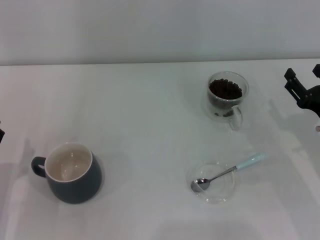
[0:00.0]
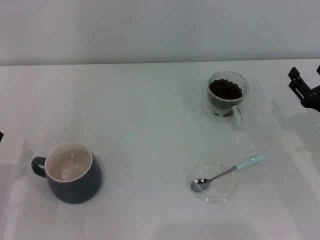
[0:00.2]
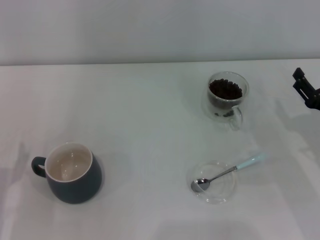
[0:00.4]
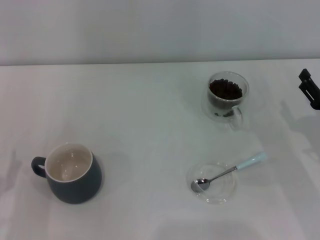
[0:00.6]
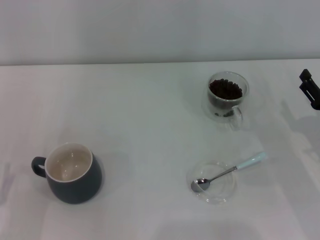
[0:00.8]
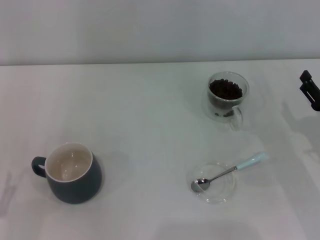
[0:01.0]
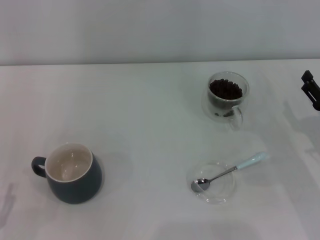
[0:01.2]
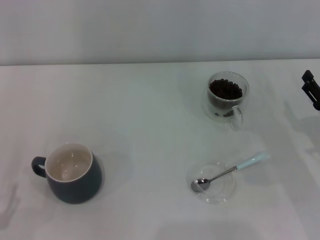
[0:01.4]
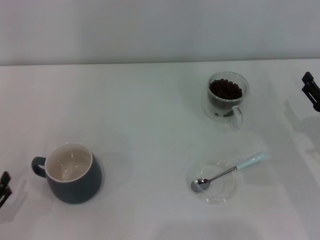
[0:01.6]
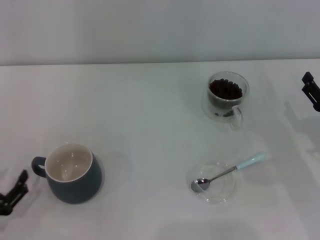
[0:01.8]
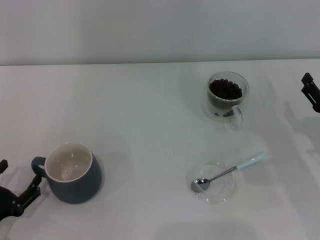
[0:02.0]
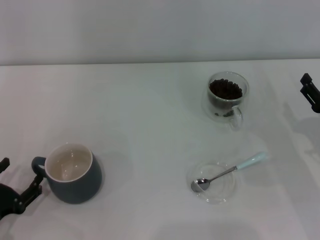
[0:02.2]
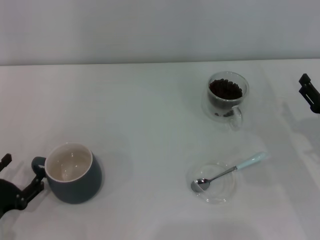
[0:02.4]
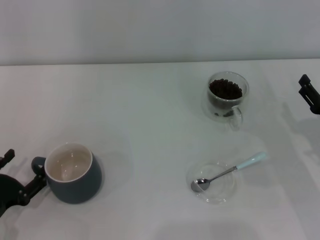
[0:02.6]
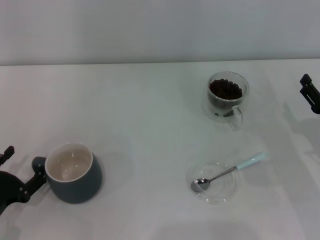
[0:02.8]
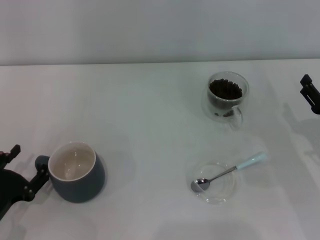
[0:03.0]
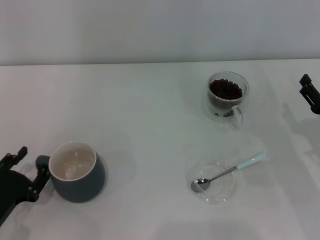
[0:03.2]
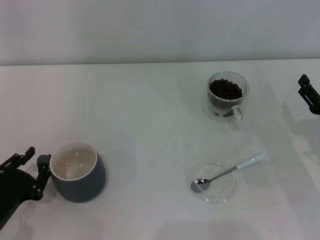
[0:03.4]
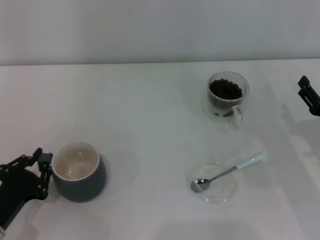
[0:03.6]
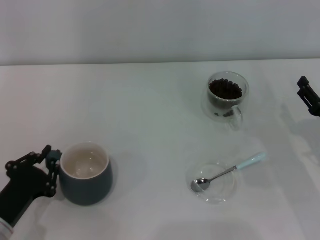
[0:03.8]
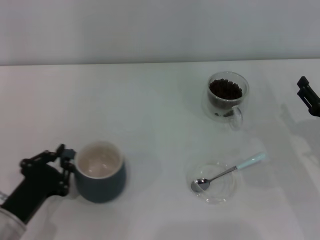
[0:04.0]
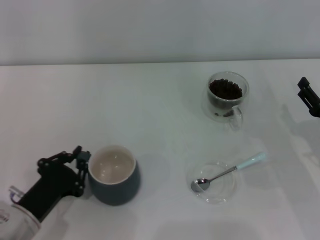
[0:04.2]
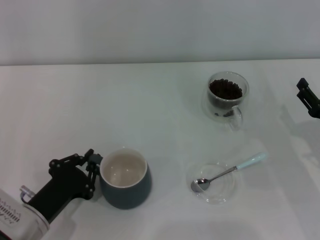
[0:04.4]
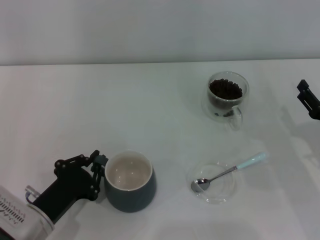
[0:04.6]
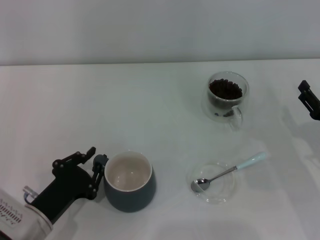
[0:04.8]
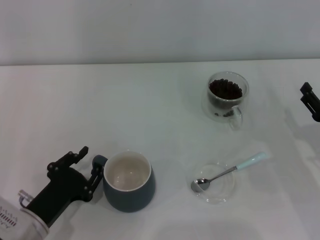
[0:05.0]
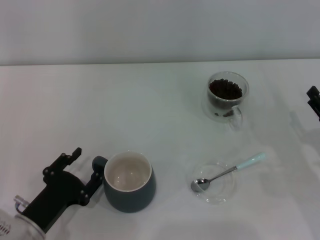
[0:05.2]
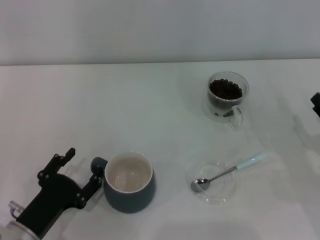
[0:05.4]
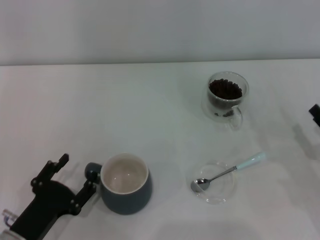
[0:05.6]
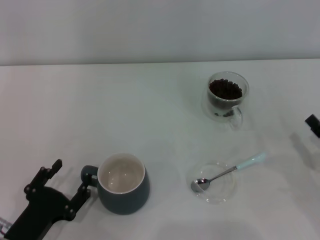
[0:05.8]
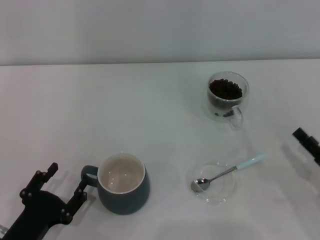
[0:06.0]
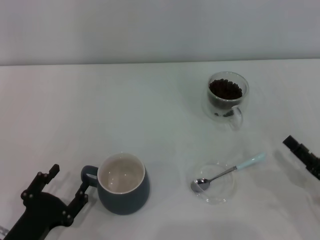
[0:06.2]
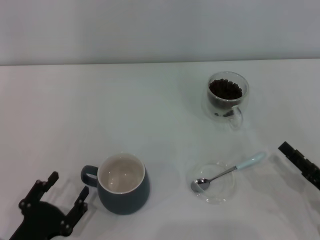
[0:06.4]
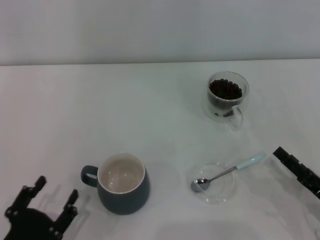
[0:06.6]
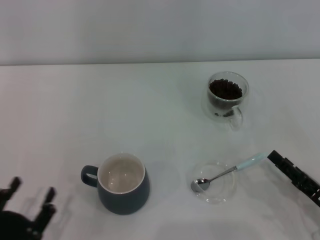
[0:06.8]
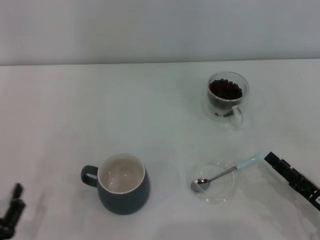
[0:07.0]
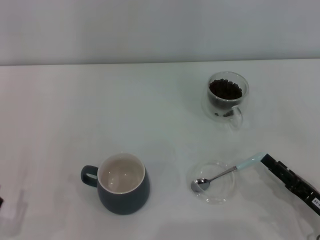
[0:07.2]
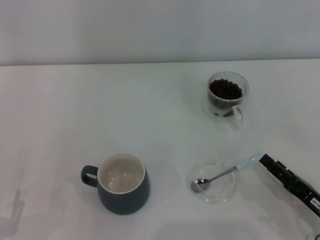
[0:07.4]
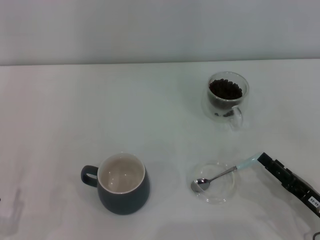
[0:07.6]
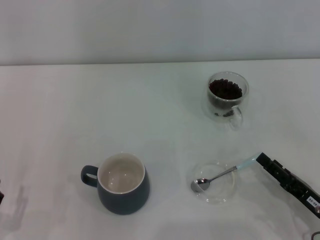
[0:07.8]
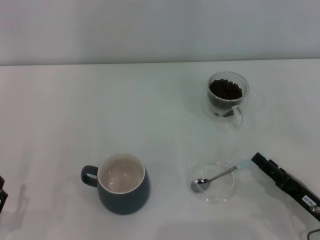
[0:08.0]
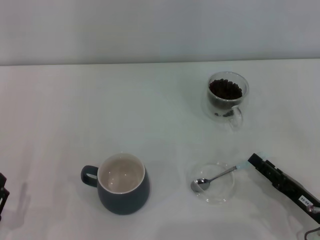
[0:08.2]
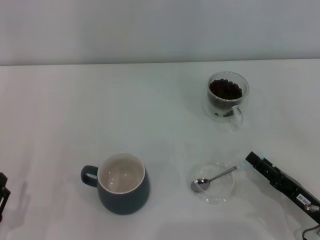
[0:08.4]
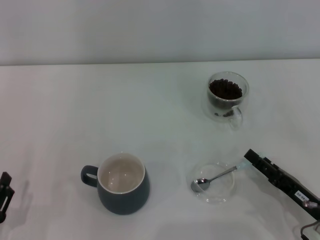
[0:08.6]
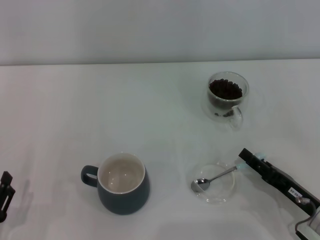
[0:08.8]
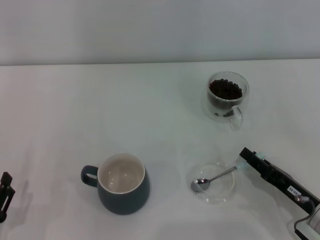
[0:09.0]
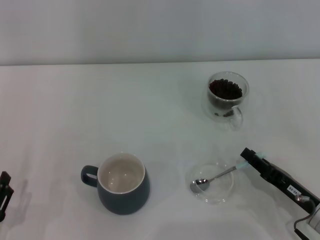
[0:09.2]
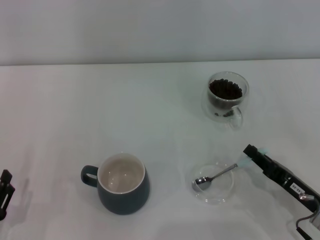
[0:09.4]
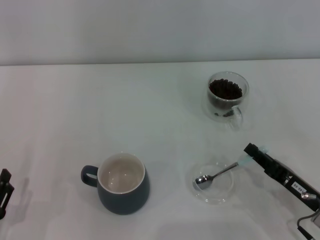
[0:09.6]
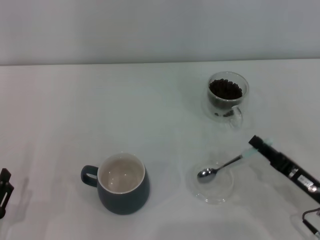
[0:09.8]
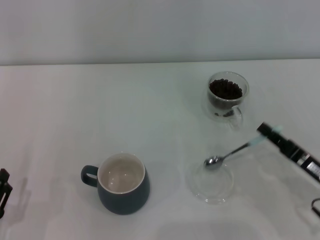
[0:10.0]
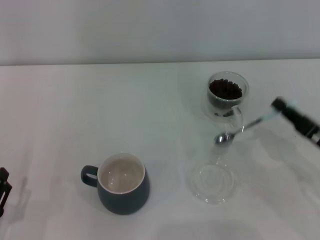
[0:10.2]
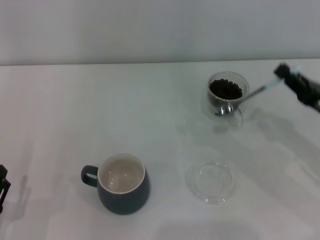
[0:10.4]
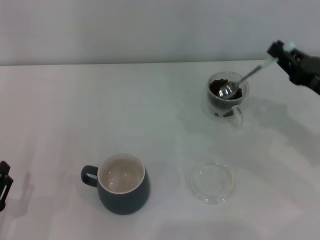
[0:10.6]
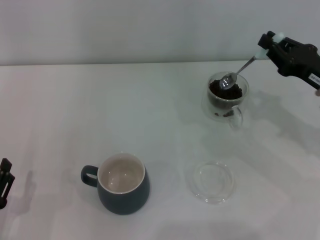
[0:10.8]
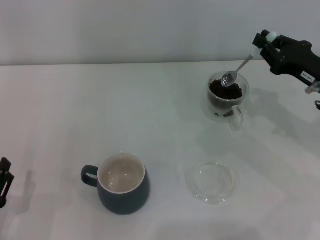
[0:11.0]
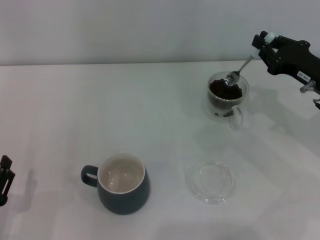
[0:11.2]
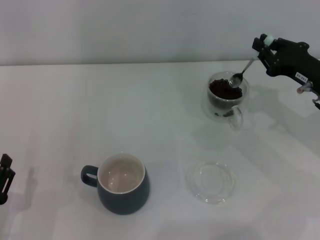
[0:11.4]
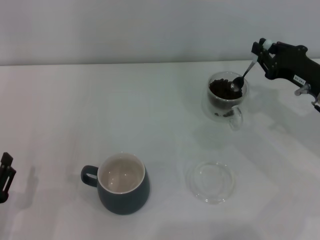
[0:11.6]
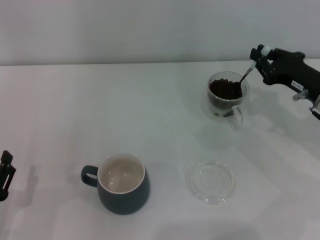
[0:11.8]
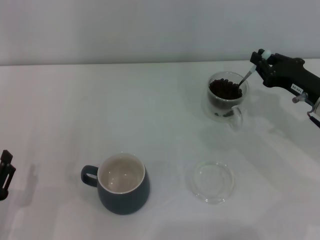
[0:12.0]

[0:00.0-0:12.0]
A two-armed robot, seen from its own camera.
Task of the whole recording: Use a blue spoon to take out the coffee beans from the glass and pour them into the gray cup.
Step, 0:00.0 to 0:06.4: Move the cup to the center of view with the left gripper.
Step, 0:06.6 to 0:10.0: Pick up the spoon with the right gripper.
0:00.0 to 0:01.6: The left gripper goes approximately 5 cm backward.
0:01.6 to 0:03.0: The left gripper shifts by roughly 5 cm.
0:03.0 to 0:04.4: The left gripper heads to the right, covering about 5 cm, and closes up.
0:04.4 to 0:06.0: The two grippers go roughly 5 cm backward. The left gripper opens.
0:06.0 to 0:07.6: The left gripper is displaced to the left by approximately 5 cm.
0:07.6 to 0:09.0: The grippers move only a little.
0:09.0 to 0:10.4: The right gripper heads upward, forward and to the right, covering about 10 cm, and closes its fingers.
0:10.4 to 0:12.0: The right gripper travels forward by about 5 cm.

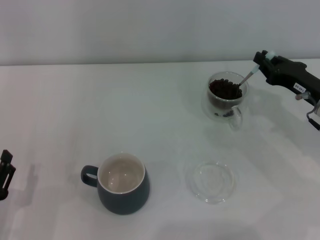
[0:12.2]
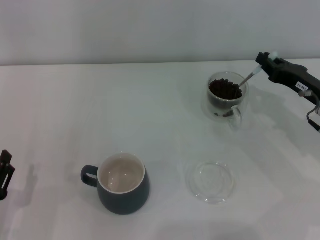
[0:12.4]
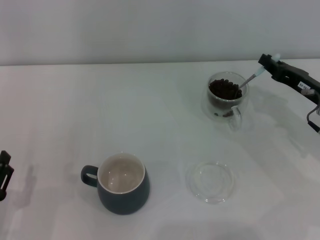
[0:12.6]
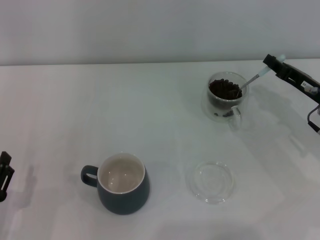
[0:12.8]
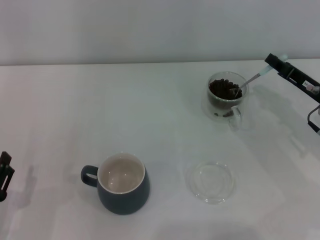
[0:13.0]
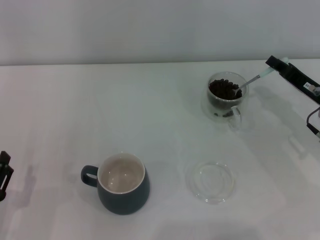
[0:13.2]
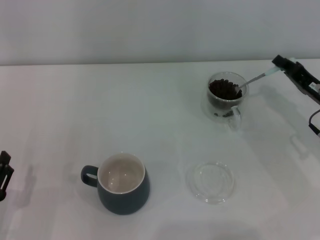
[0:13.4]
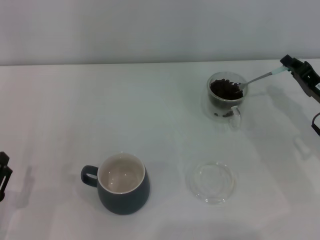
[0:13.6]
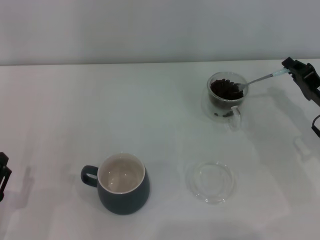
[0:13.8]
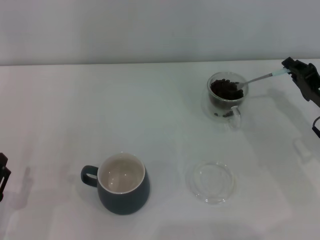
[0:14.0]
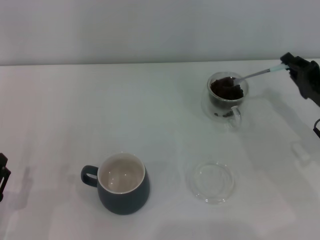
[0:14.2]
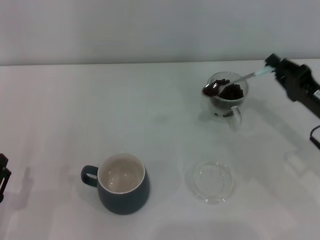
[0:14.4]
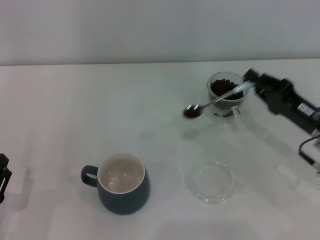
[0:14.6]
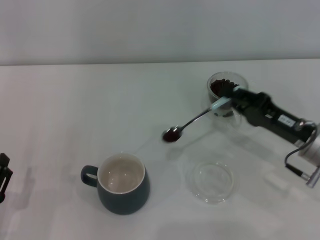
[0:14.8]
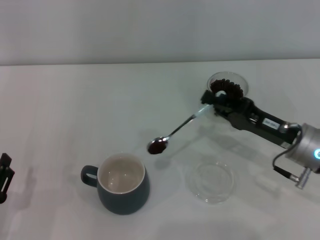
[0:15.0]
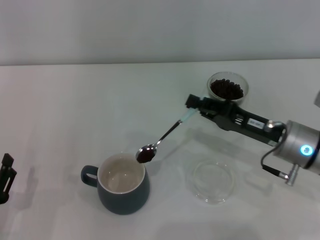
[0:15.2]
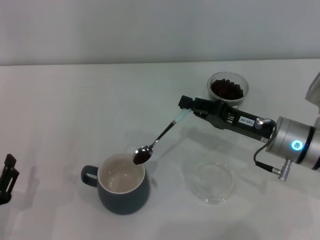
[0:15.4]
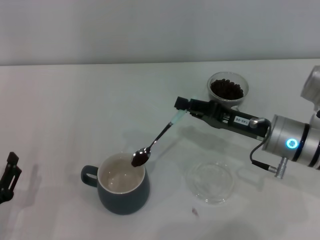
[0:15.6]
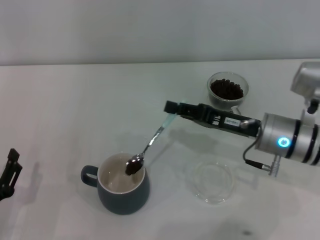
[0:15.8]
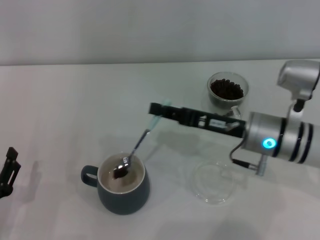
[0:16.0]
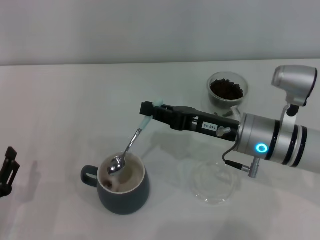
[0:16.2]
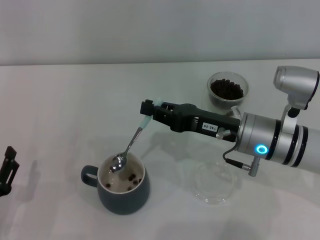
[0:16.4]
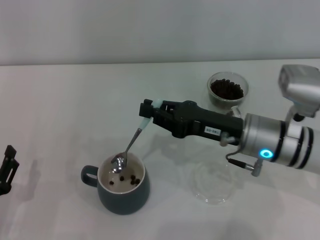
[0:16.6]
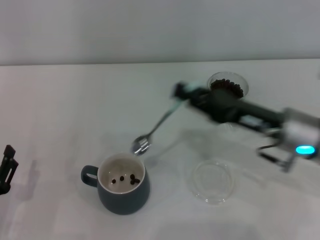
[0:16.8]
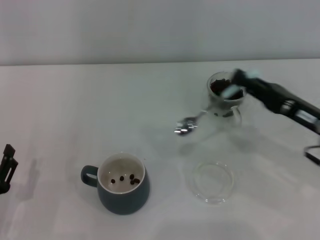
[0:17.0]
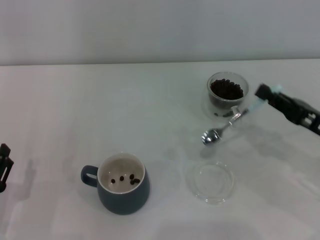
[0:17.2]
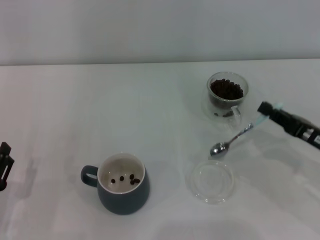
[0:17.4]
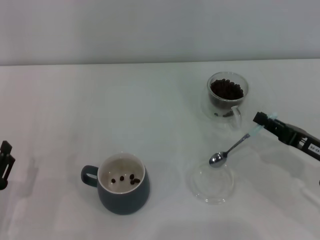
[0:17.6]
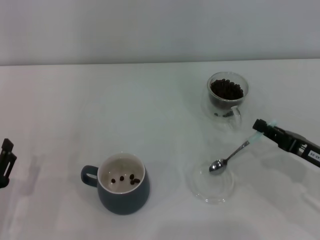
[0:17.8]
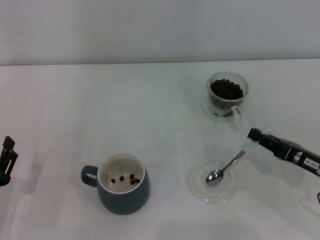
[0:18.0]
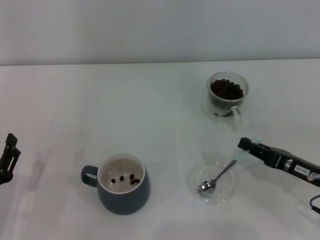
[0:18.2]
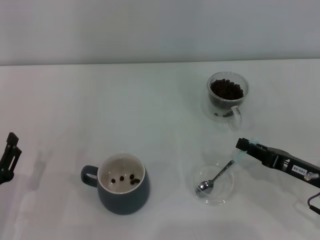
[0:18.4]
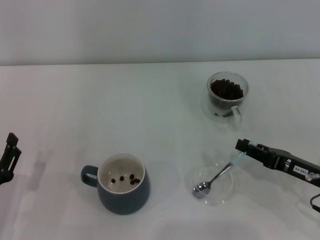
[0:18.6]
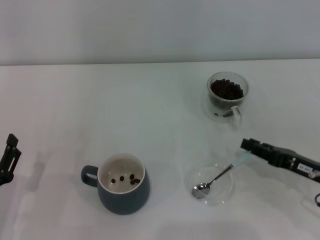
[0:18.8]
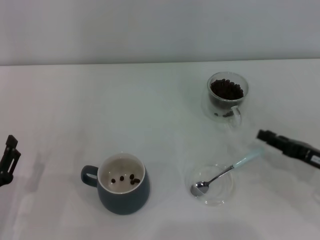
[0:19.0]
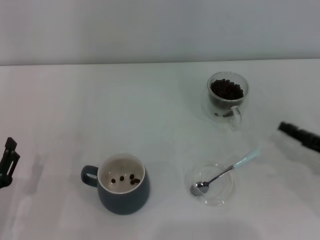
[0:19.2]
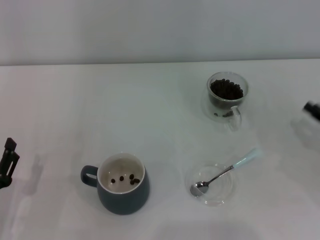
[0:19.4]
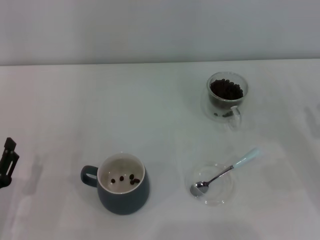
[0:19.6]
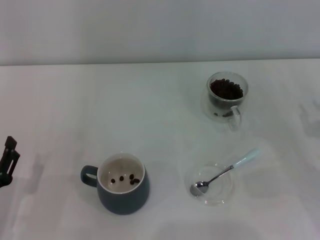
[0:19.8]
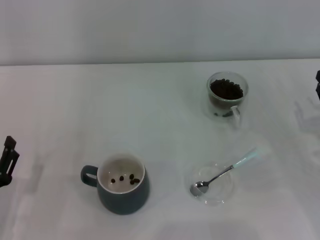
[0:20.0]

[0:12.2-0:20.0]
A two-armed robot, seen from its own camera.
Task of the whole recording: Use a blue spoon to take out the coffee beans from the glass and pour them into the gray cup.
Step, 0:12.2 to 0:16.6: Scoop a spoonful of beans into the cup with the right gripper.
Step, 0:16.8 to 0:18.8: Place the spoon back in its original place with the right gripper.
0:13.8 to 0:15.4: The right gripper travels to the left by roughly 10 cm.
0:16.8 to 0:18.4: The right gripper heads to the right, downward and backward, covering about 10 cm.
0:18.4 to 0:20.0: The right gripper moves to the right, roughly 5 cm.

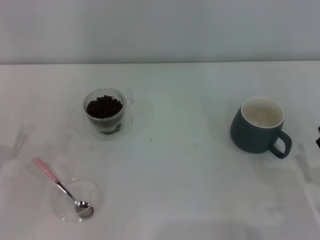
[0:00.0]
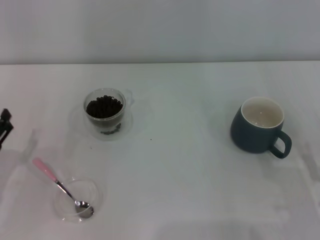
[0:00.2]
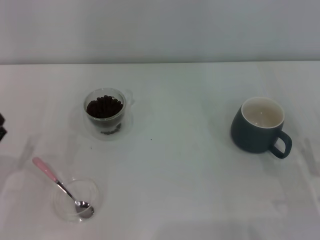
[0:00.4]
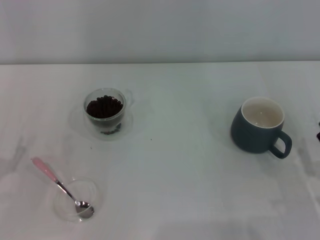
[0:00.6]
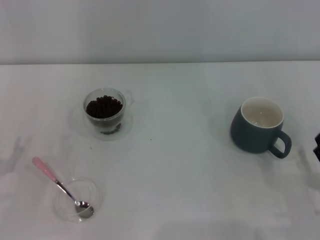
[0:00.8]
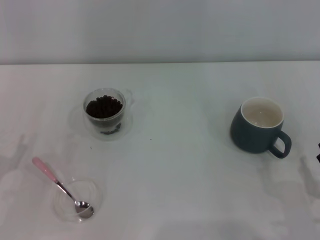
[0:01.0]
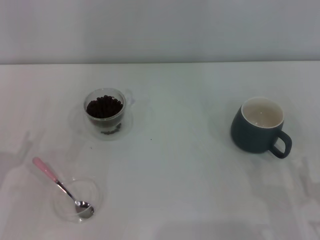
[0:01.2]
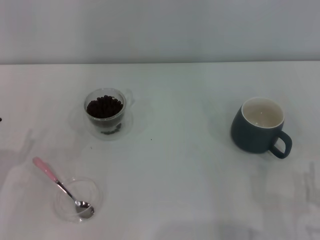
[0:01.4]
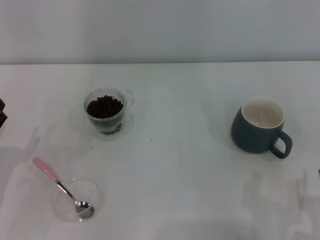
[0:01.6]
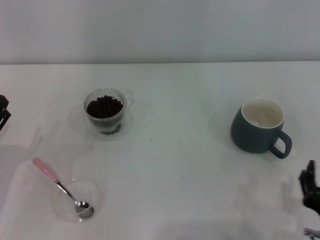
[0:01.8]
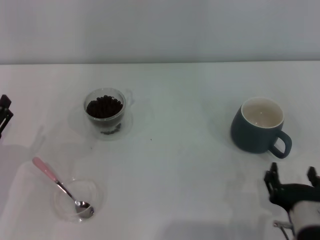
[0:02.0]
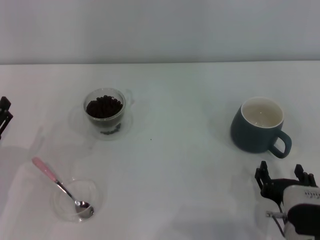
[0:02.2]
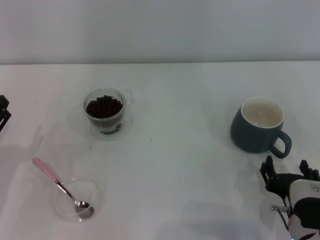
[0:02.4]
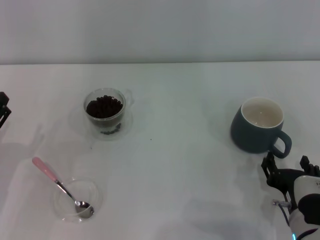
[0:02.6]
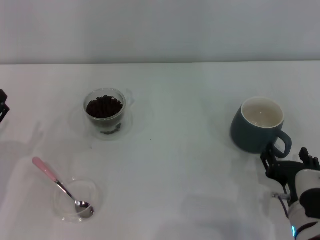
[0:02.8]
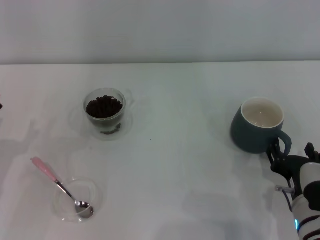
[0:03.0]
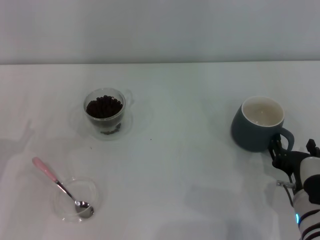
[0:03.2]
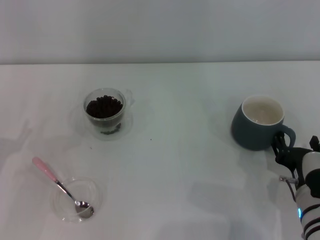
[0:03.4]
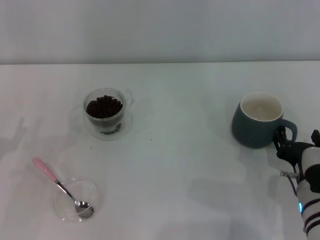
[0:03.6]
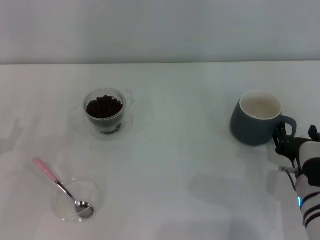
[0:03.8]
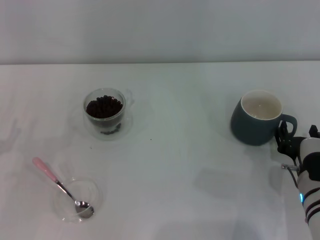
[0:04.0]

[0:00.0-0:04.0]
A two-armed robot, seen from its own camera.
Task of the whole recording: Use a pink spoon to take out the coffee beans from the glass and pour them into the gray cup.
0:01.4 to 0:02.6: The right gripper moves forward, about 5 cm.
0:02.6 to 0:04.0: The right gripper travels forward by about 5 cm.
